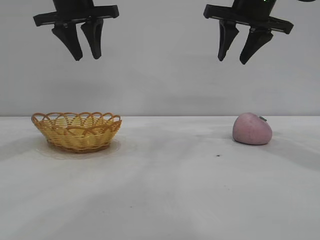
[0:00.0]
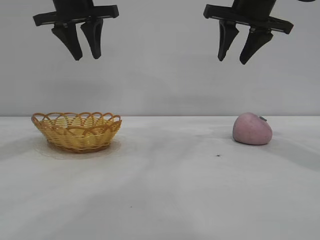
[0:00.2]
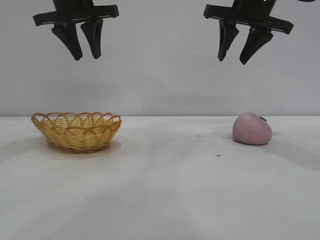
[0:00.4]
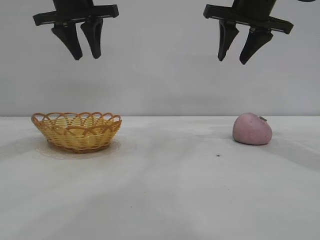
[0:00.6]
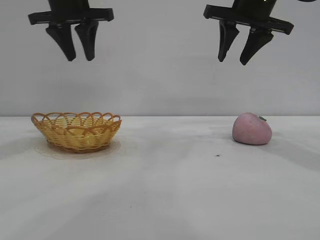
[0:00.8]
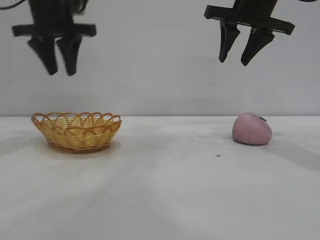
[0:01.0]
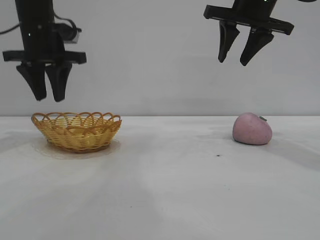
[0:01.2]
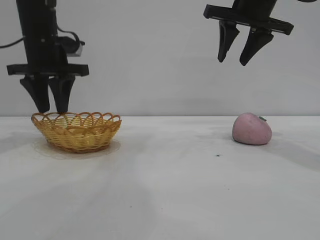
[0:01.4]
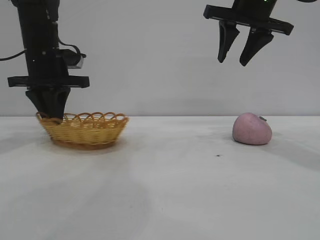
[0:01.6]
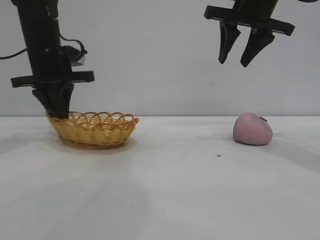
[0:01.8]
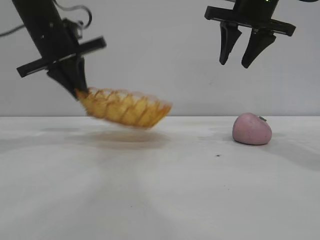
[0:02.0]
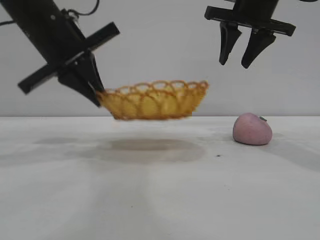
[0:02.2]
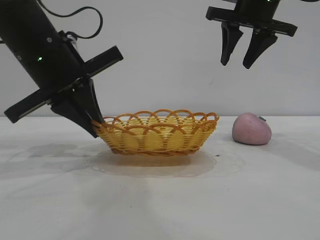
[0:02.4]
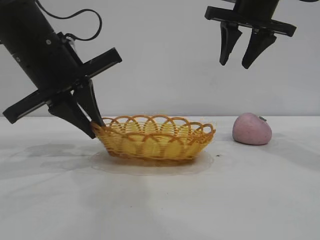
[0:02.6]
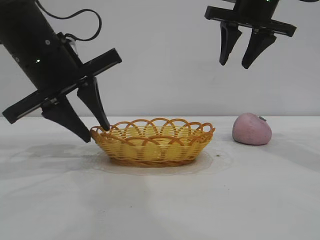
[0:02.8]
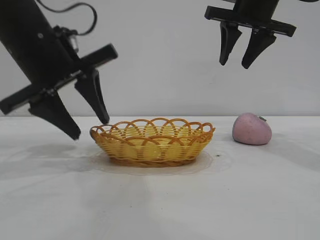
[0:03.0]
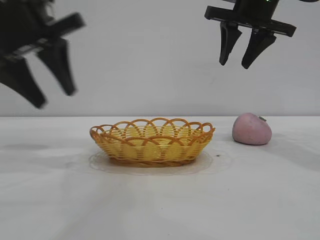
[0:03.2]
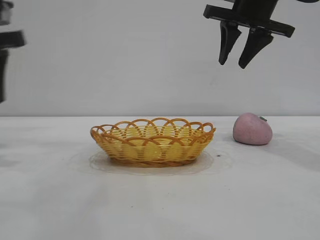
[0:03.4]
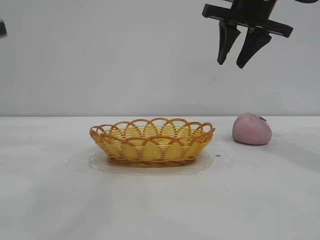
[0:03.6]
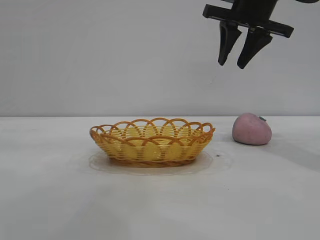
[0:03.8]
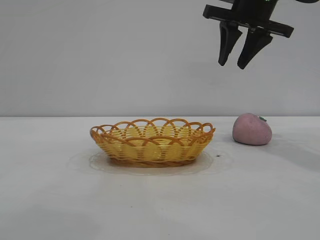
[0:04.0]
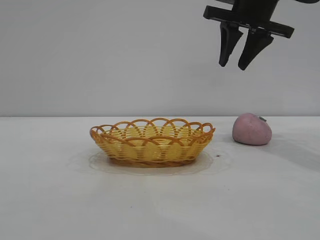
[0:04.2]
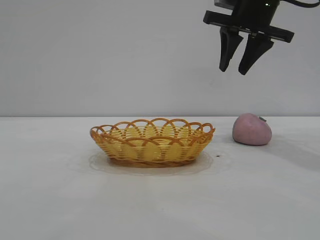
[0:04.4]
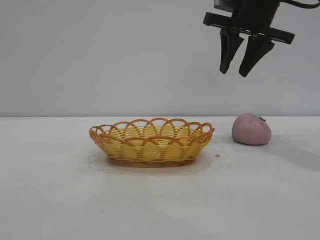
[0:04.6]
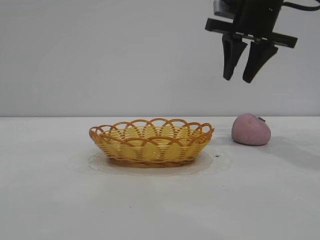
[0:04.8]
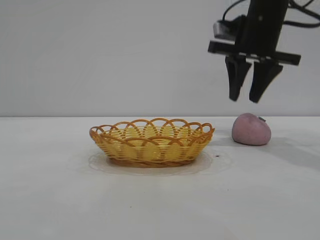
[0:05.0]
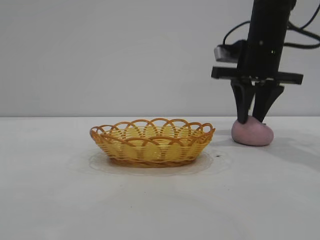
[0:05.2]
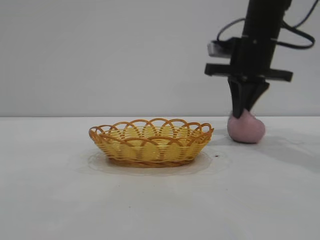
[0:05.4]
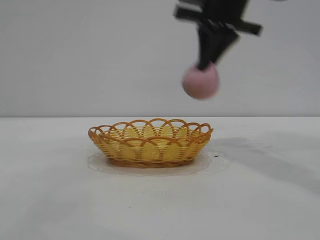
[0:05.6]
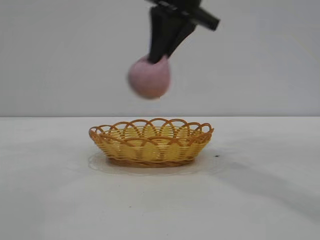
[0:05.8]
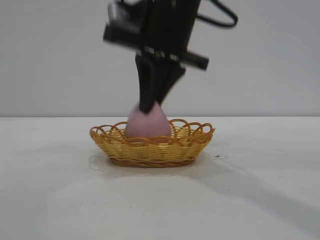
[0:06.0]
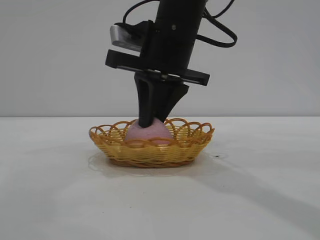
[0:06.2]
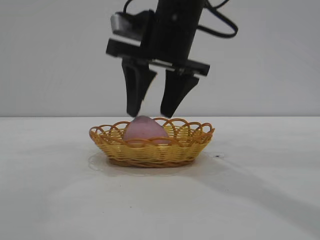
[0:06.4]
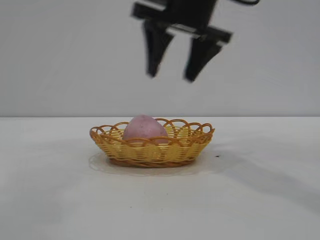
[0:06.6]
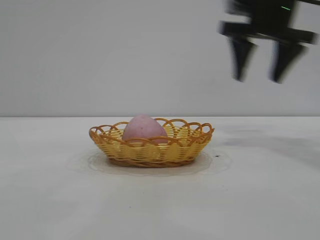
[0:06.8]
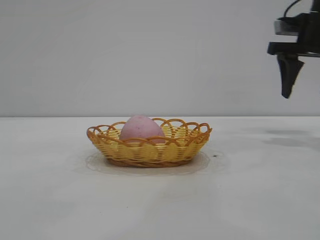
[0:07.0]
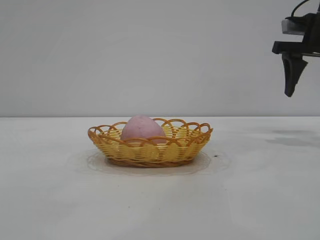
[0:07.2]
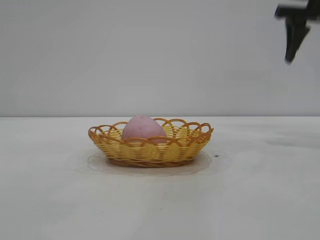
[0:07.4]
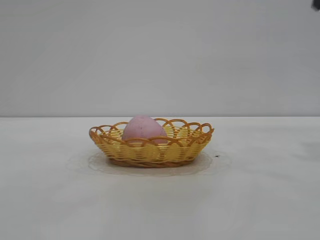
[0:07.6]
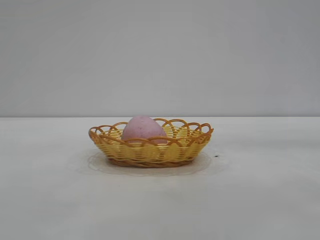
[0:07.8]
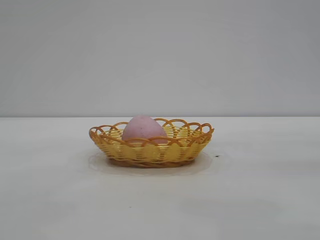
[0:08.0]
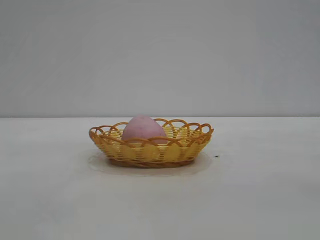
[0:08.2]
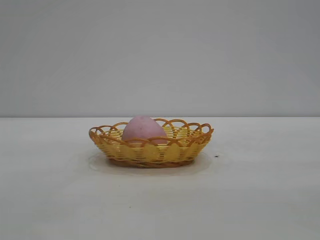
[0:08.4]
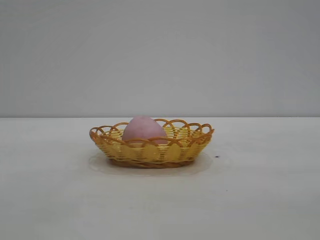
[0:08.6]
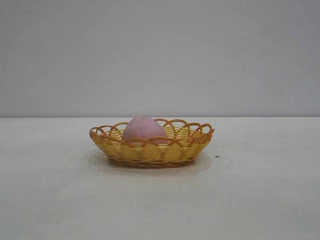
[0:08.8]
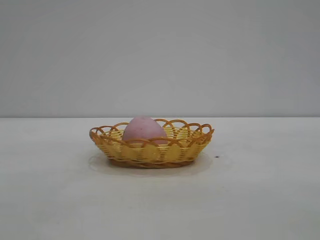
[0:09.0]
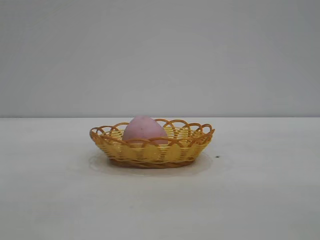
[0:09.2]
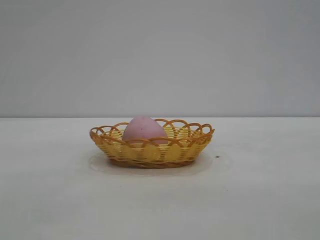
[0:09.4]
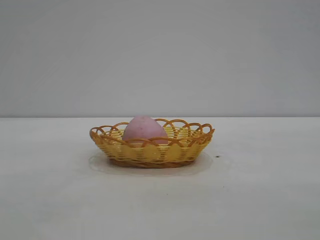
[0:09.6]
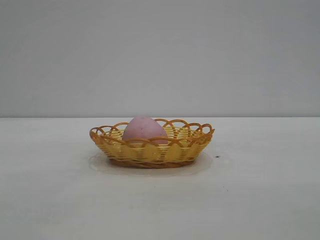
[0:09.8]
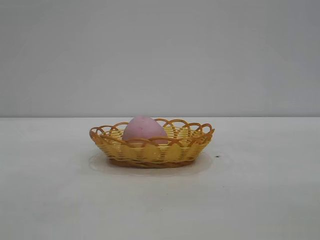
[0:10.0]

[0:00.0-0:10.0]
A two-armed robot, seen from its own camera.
Task of the whole recording: pick up the peach and put it into the basket.
Step, 0:00.0 to 0:03.0: Move the basket to the center of view.
Step, 0:03.4 to 0:05.4: Pick up the peach.
Step, 0:05.6 to 0:06.4: place the peach into the basket.

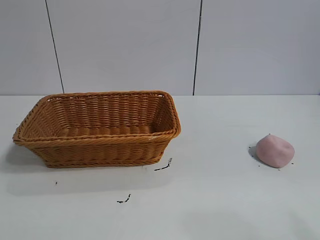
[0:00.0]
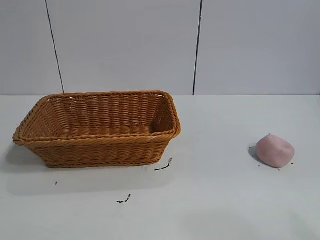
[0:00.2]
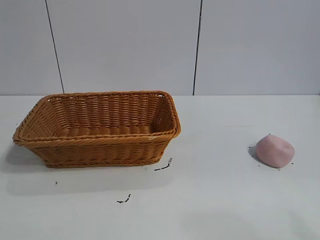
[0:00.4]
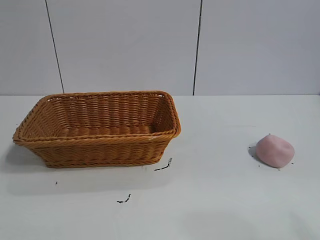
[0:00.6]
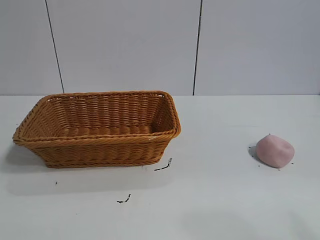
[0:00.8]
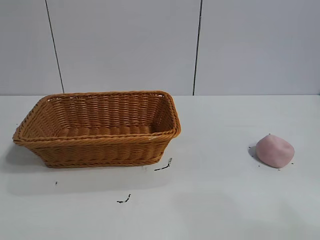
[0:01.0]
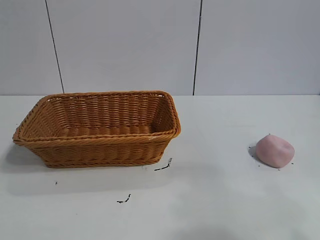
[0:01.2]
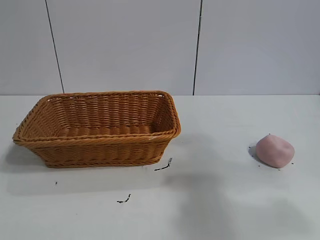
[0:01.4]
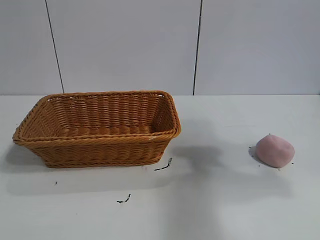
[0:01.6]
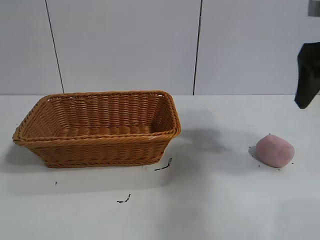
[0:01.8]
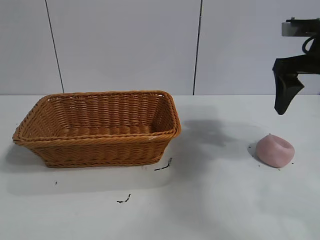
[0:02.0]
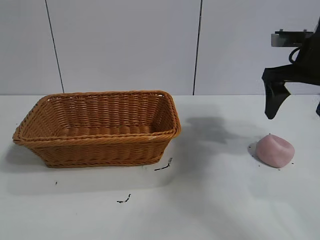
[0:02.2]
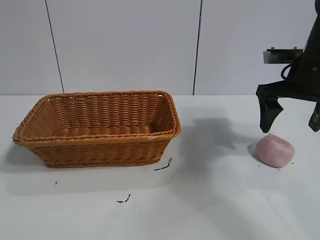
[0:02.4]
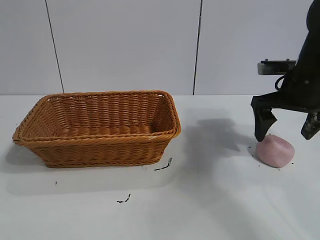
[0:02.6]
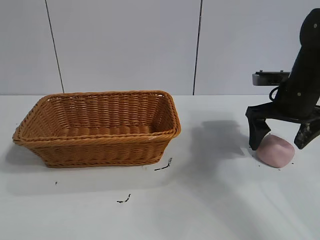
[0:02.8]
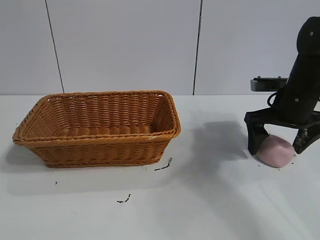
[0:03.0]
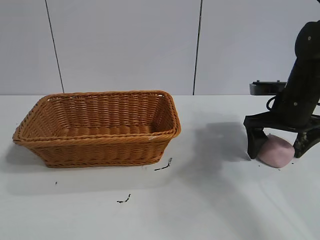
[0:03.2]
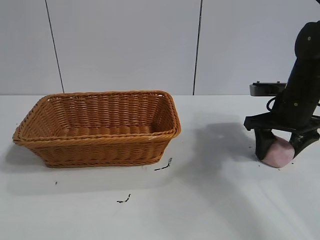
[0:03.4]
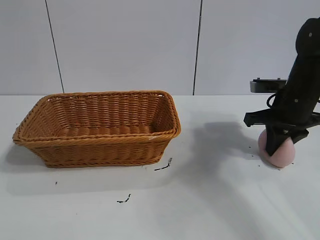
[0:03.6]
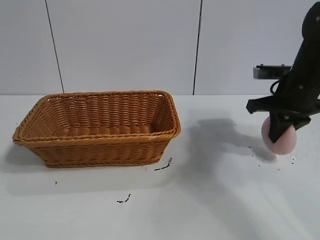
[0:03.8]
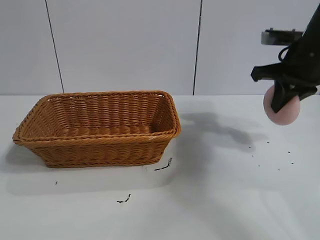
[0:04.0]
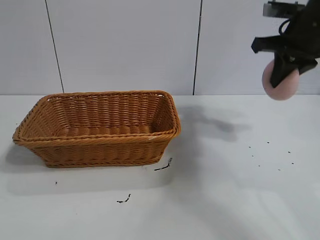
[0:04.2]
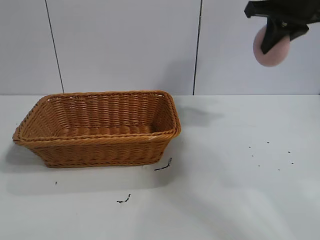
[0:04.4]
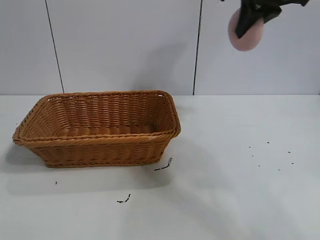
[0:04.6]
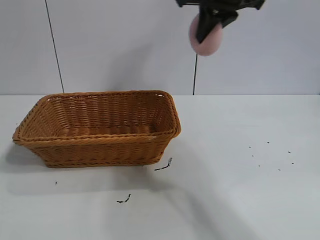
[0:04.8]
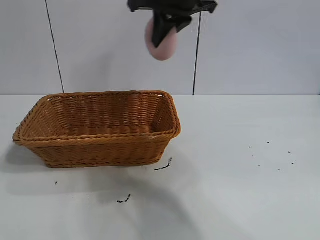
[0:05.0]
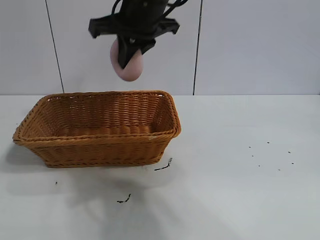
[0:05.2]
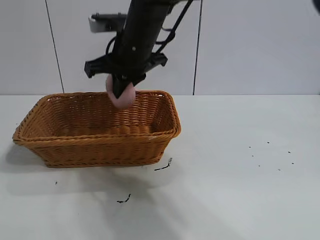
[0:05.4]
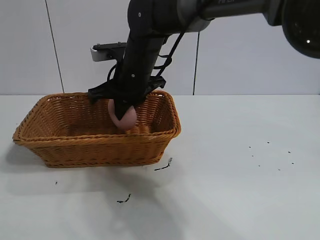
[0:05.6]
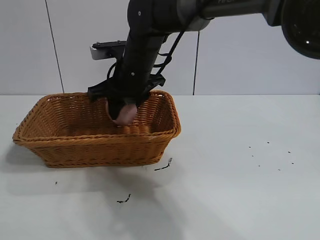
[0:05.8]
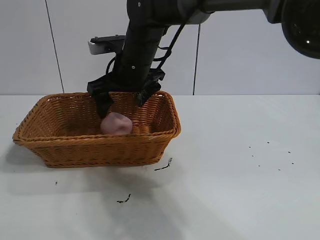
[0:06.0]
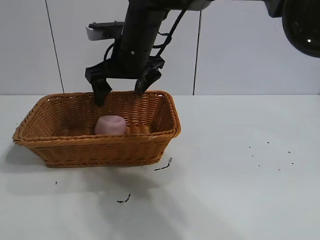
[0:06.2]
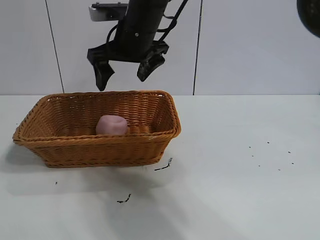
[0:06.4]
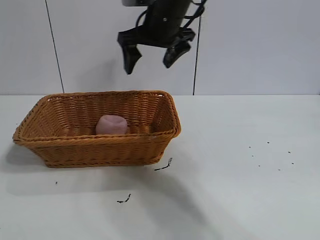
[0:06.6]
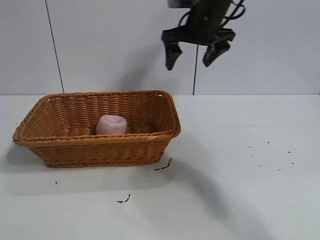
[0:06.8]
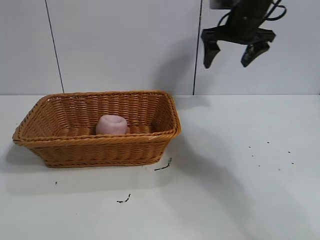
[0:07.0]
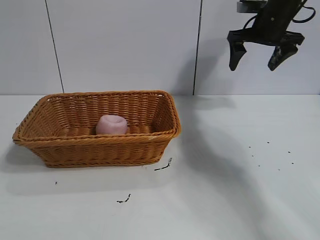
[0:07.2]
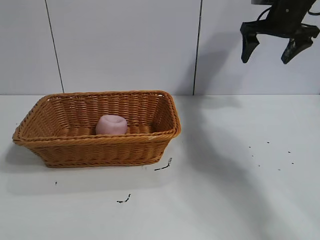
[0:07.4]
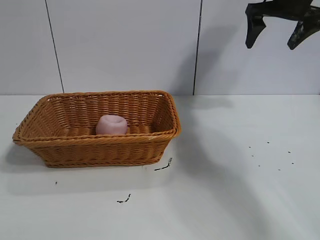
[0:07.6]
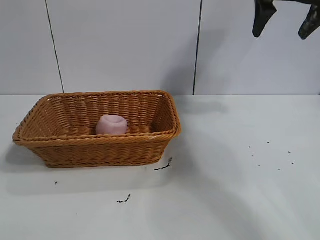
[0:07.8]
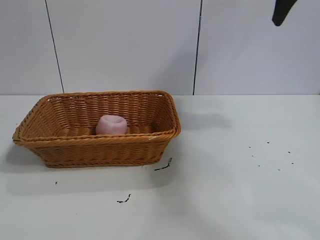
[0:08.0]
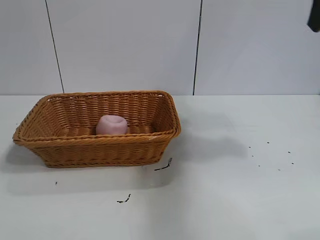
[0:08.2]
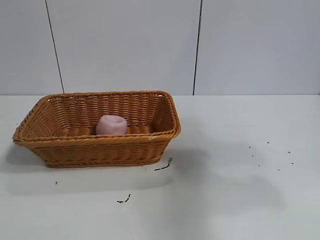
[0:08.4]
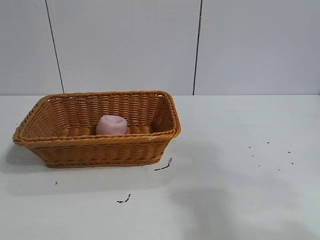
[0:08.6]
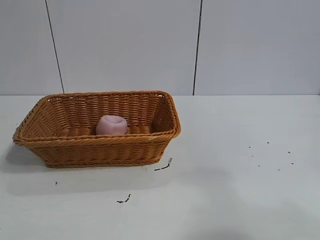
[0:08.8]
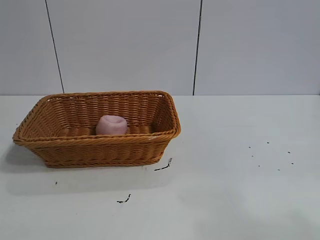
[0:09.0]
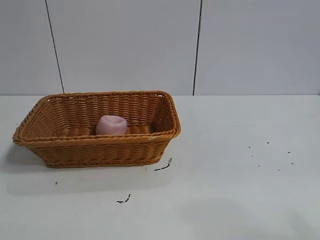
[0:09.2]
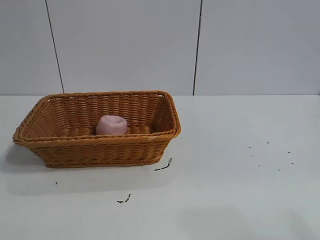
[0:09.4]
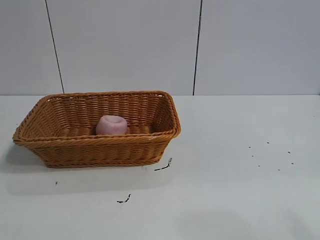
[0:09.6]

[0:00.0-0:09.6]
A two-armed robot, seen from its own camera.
Task of the whole recording: pick up the peach and put it into the basket.
Step, 0:01.0 to 0:03.4: Grasp the peach with right gripper.
Step, 0:03.8 to 0:05.8: Place the peach in the basket with right gripper.
